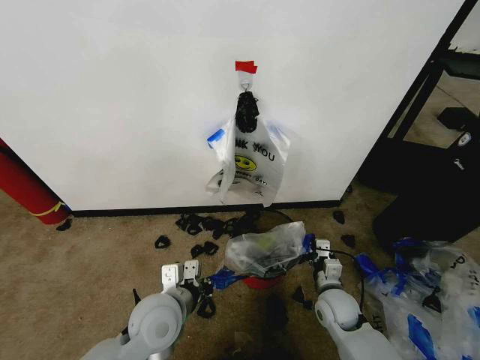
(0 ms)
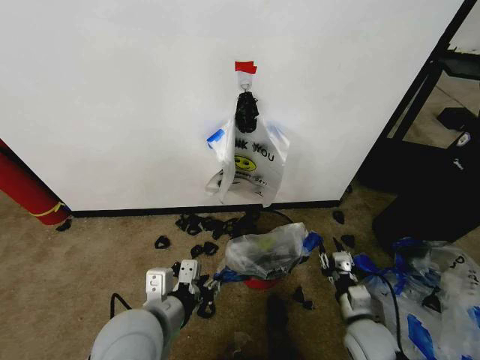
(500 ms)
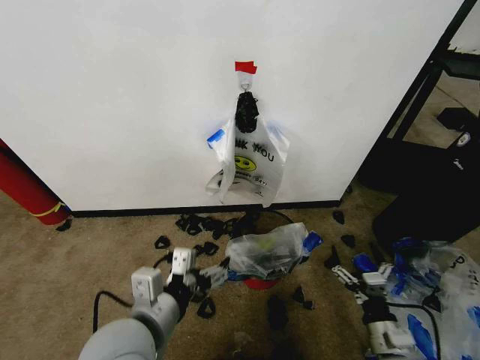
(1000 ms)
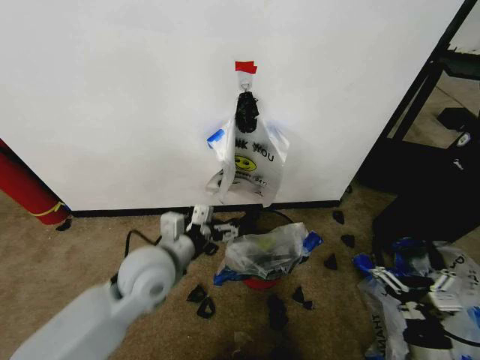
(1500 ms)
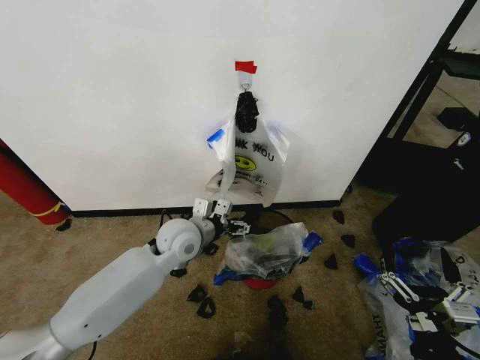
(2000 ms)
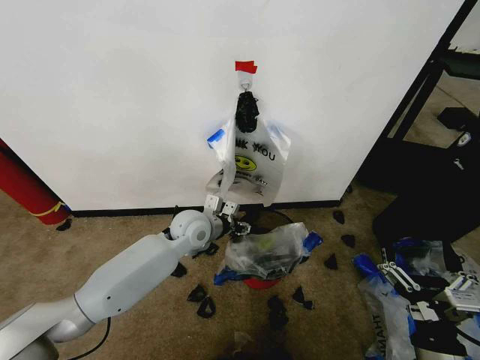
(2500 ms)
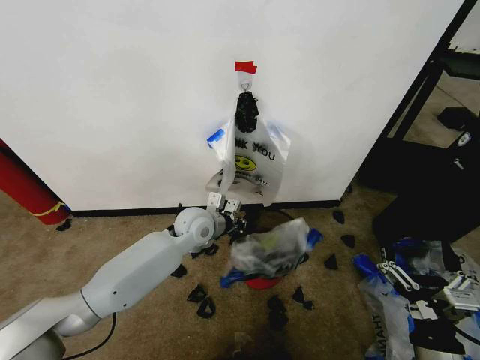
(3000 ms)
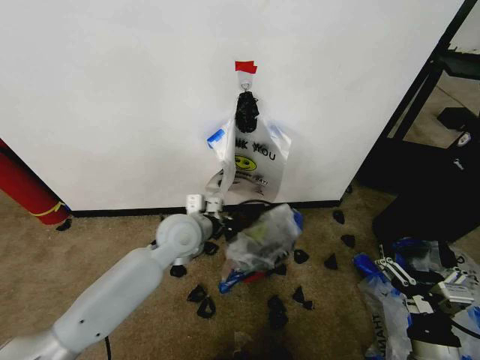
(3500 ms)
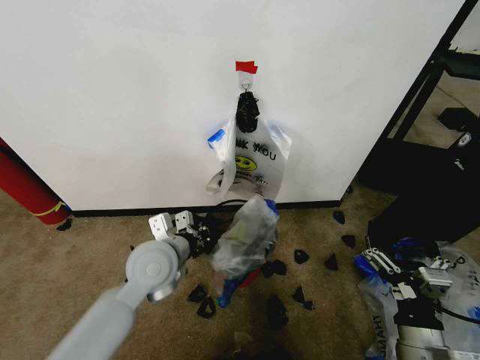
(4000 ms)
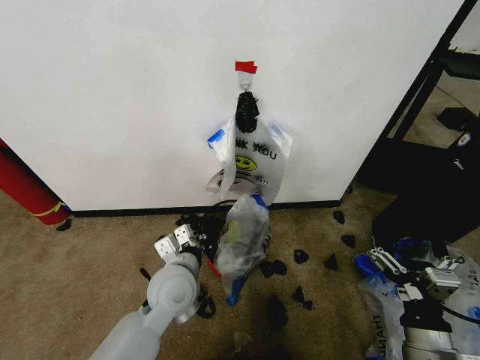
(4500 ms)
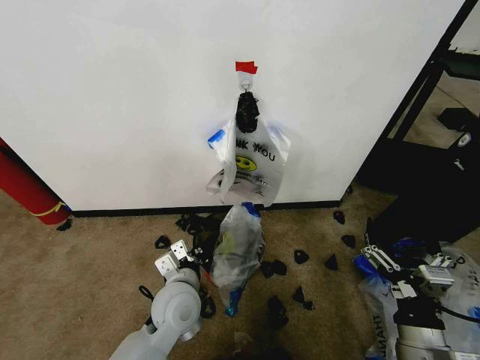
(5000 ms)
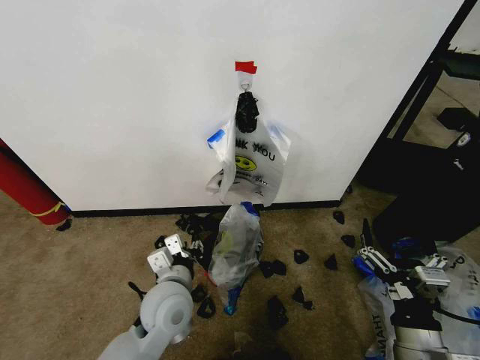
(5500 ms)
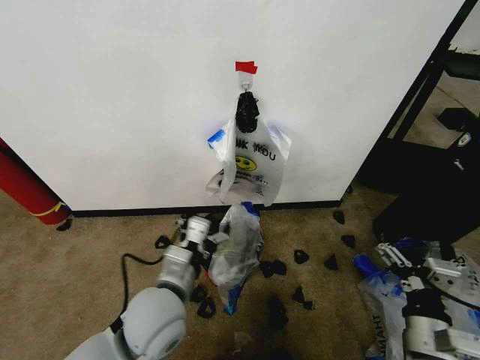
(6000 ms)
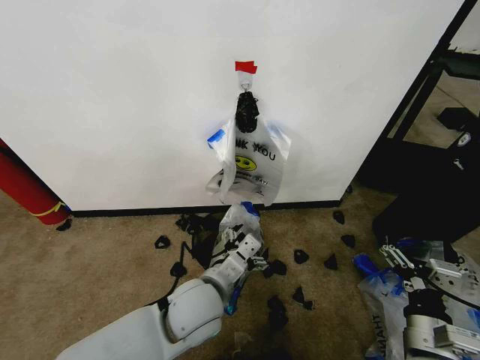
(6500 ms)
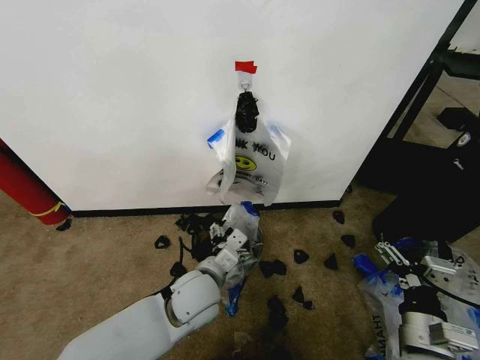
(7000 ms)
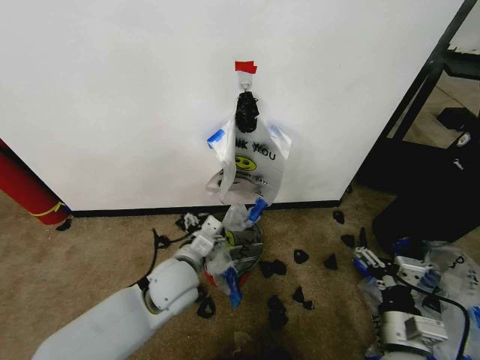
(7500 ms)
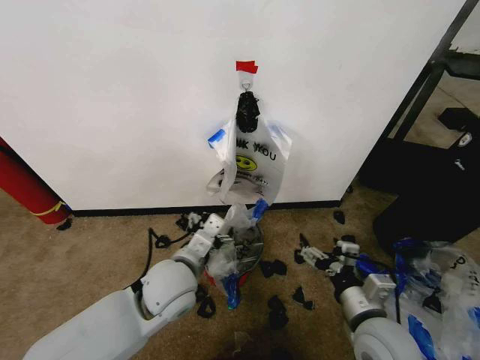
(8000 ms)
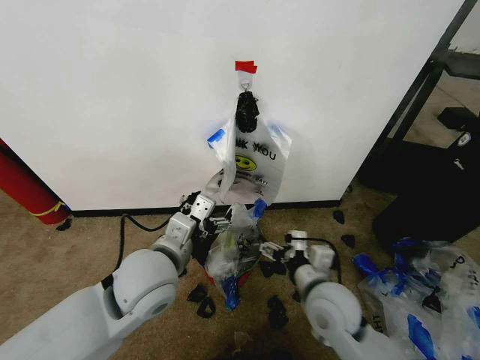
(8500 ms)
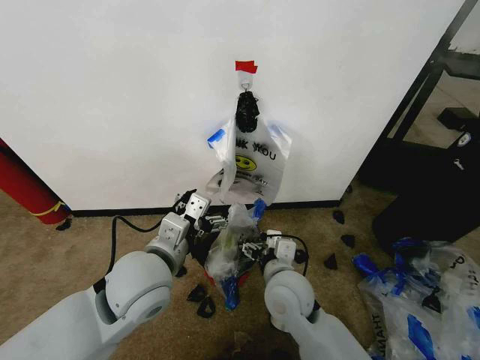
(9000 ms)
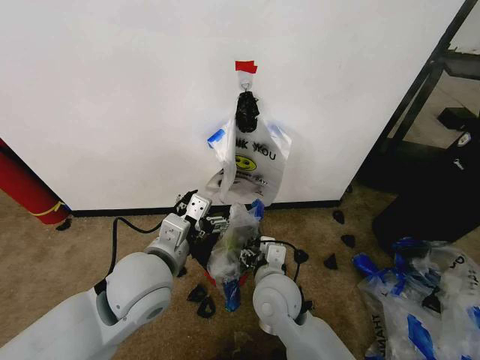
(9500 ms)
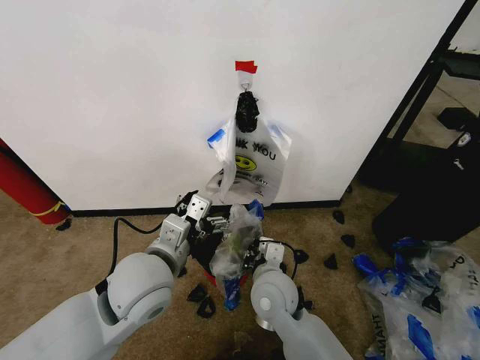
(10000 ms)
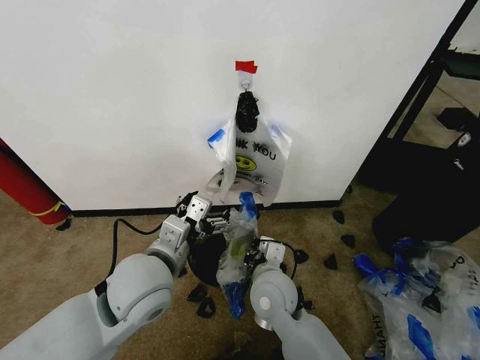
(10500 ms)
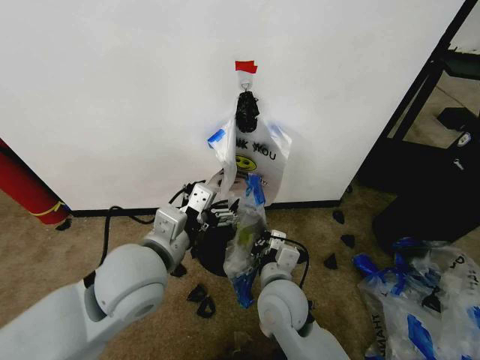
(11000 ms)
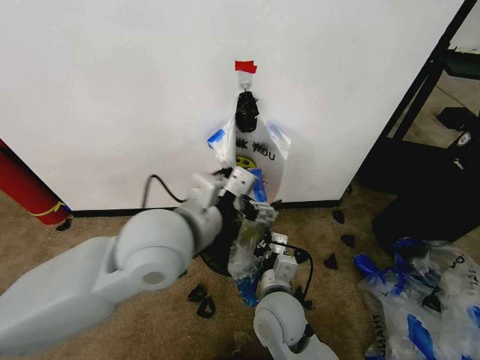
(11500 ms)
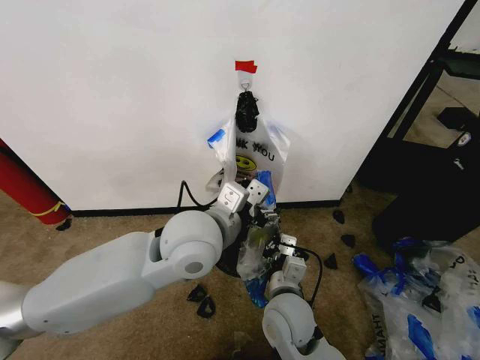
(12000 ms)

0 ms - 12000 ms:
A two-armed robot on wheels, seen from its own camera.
Task of the whole recording: Pick up the garbage bag from the wall and place it over the trash bin.
0 ms - 2000 ms: The right gripper is displaced backward and upward by approximately 25 cm, and opens its fingers; the left gripper heads forward, covering about 15 cm, and opens.
2000 ms - 4000 ms: The left gripper travels backward by some 5 cm, and closes its fingers.
4000 ms - 6000 ms: The left gripper shifts approximately 10 cm backward, and opens up.
6000 ms - 8000 ms: Both grippers move forward, about 5 cm.
8000 ms - 10000 ms: The left gripper shifts approximately 5 cm upward. Meanwhile the right gripper moves to the left and forward, approximately 20 cm, and closes its fingers.
10000 ms - 12000 ms: The right gripper closes its fingers. The left gripper moves to the right and upward, roughly 10 cm.

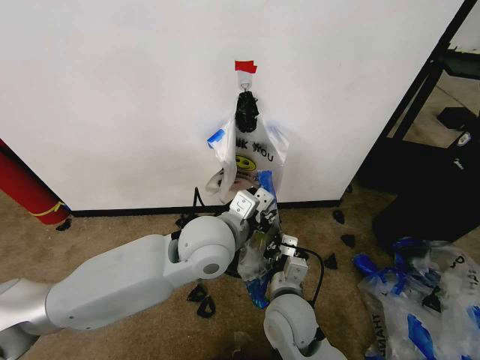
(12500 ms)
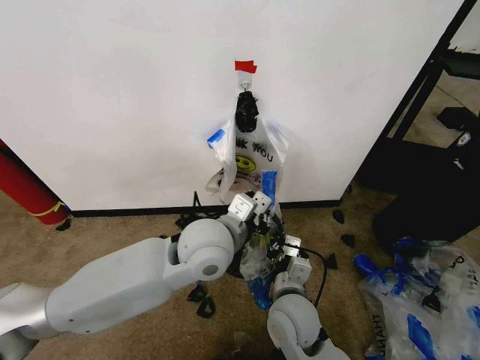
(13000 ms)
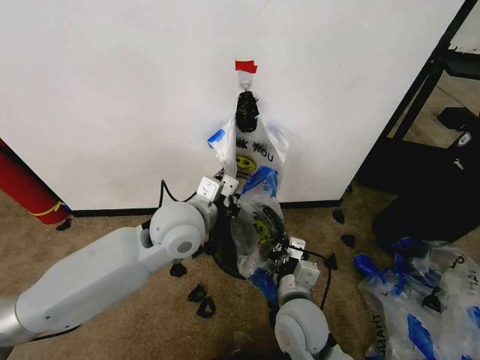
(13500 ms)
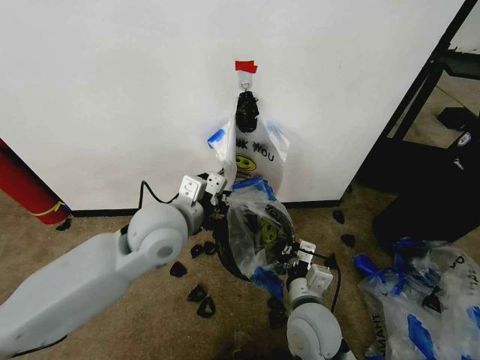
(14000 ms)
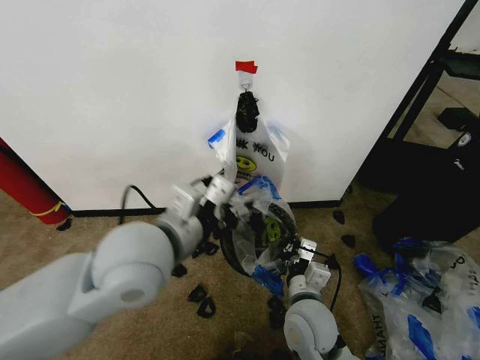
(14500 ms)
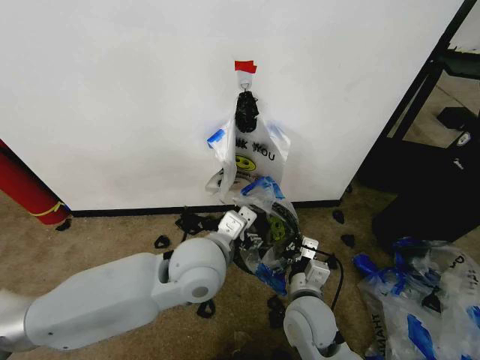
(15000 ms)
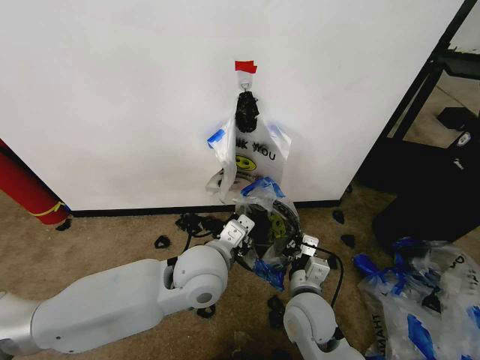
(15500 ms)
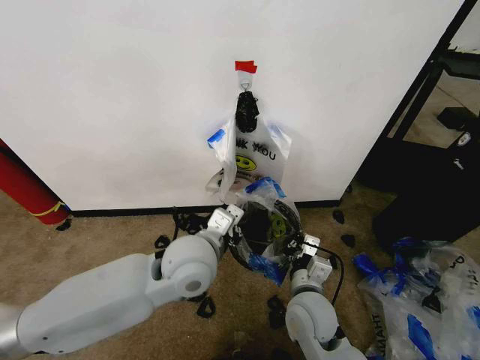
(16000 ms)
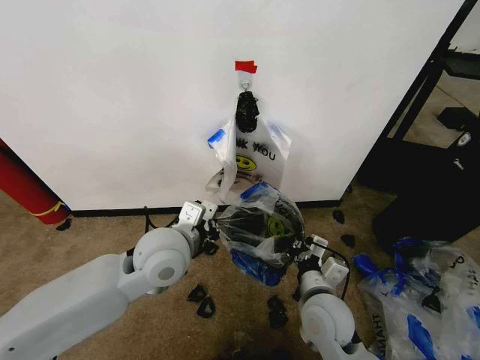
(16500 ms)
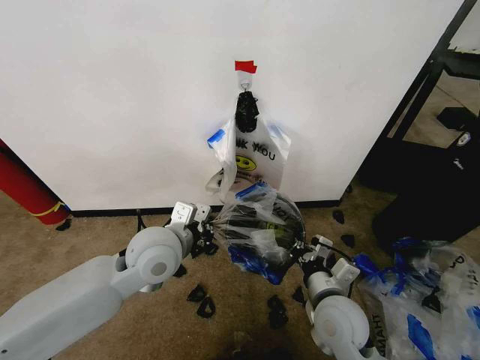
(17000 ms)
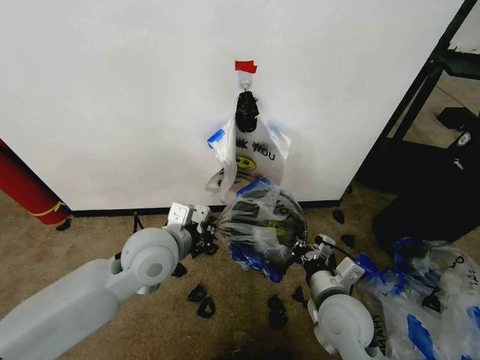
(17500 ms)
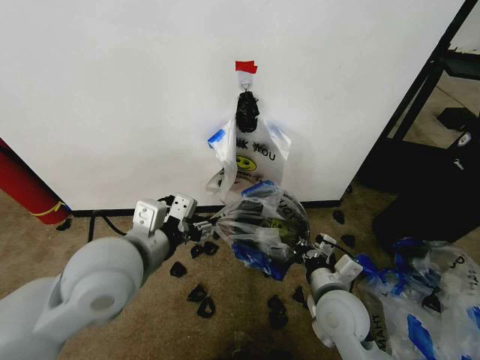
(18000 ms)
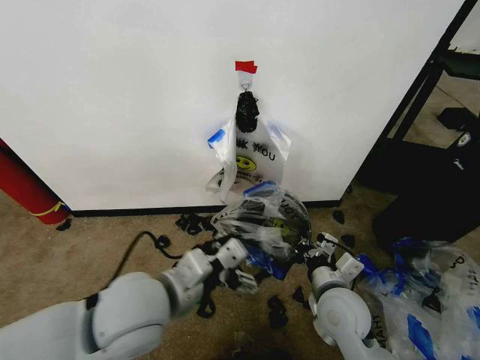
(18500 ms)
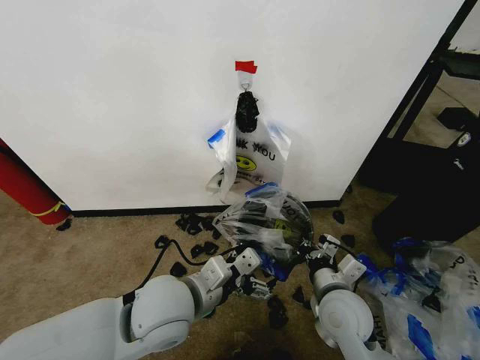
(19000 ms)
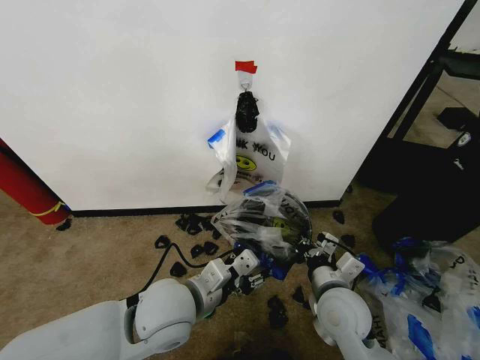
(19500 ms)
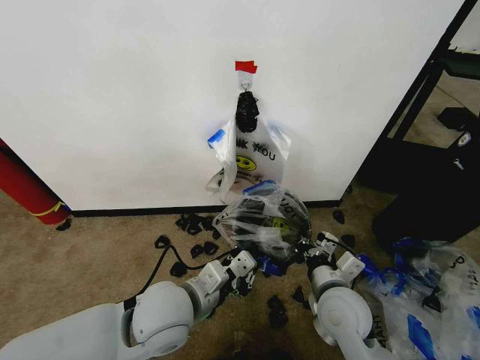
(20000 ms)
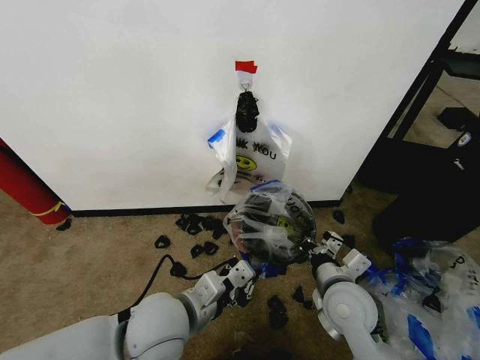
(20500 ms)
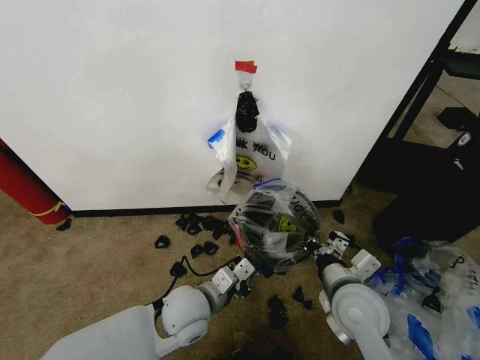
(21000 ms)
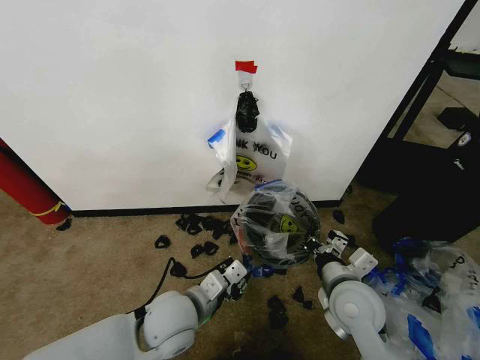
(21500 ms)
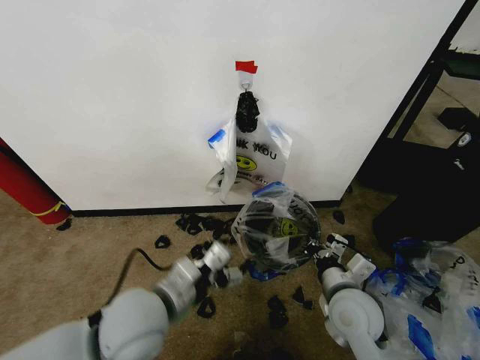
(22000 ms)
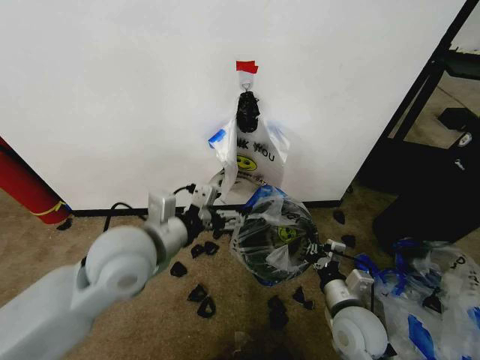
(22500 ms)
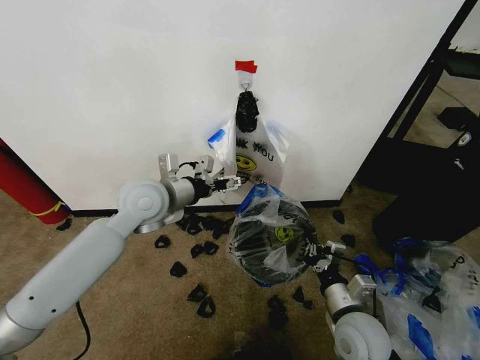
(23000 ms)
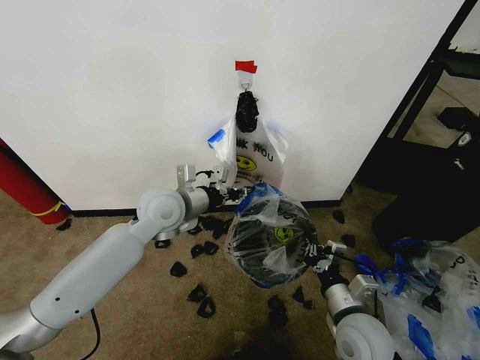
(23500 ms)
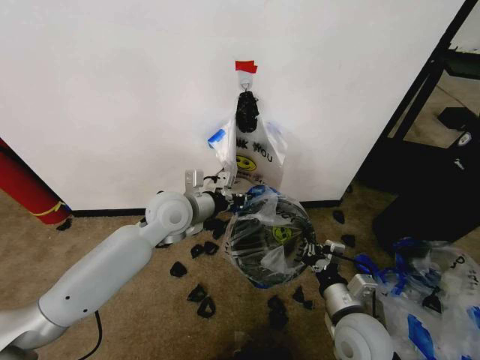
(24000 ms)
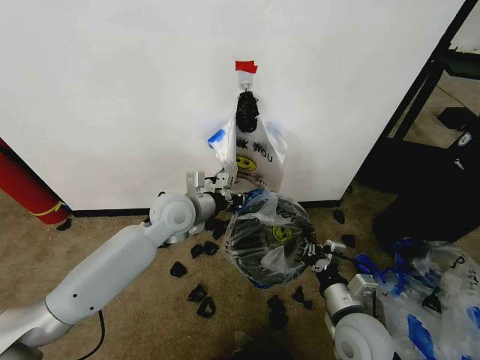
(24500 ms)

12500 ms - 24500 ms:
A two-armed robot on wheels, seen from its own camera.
Task of the whole recording: Pick up the garbage bag from the wall and place it over the trash bin.
12500 ms - 14500 ms: The left gripper goes some 10 cm to the left, upward and backward.
14500 ms - 16500 ms: The left gripper heads downward and forward, covering about 10 cm, and closes up.
16500 ms - 18500 ms: The left gripper heads backward, covering some 10 cm, and opens up.
18500 ms - 20500 ms: The left gripper shifts roughly 5 cm downward, and closes.
20500 ms - 22500 ms: The left gripper moves upward and forward, some 15 cm, and opens up; the right gripper shifts roughly 5 cm downward.
22500 ms - 24500 ms: The left gripper moves forward and downward, about 15 cm, and closes up.

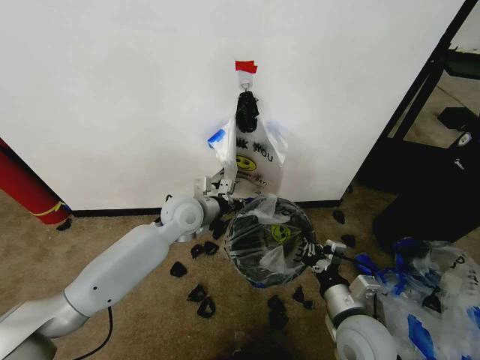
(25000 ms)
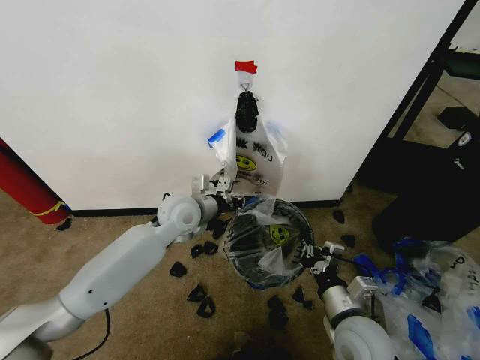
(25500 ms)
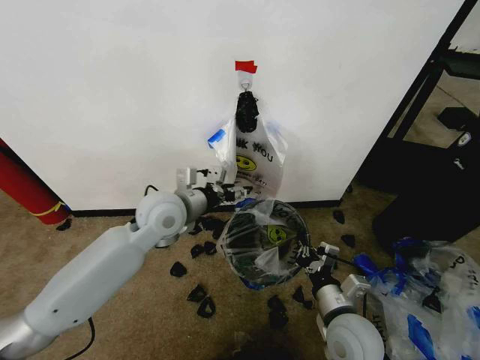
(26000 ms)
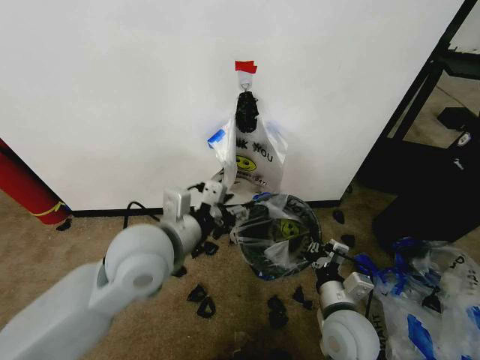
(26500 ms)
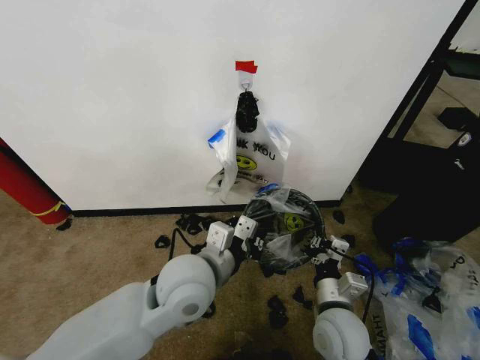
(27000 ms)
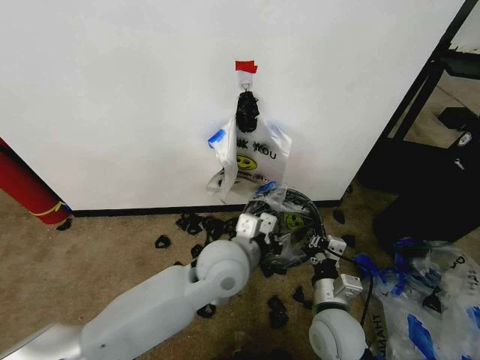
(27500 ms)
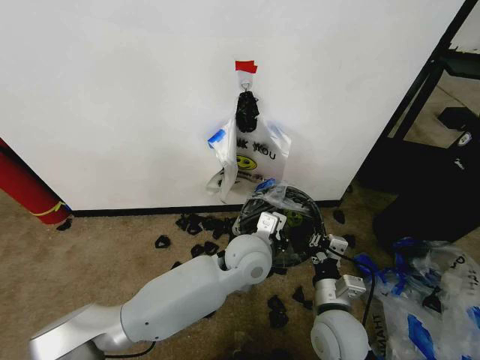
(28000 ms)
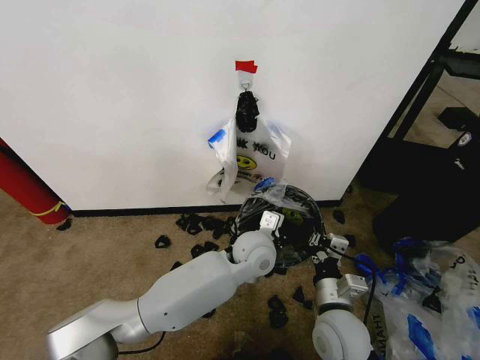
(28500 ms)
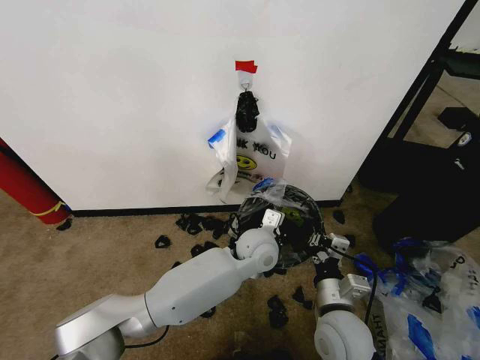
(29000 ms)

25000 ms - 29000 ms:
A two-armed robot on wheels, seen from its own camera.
Task of the whole recording: Pick up the garbage bag from the wall and place it over the trash bin.
25000 ms - 27000 ms: The left gripper shifts about 20 cm backward, and opens, then closes again.
27000 ms - 29000 ms: The left gripper moves to the right, forward and downward, approximately 20 cm.
